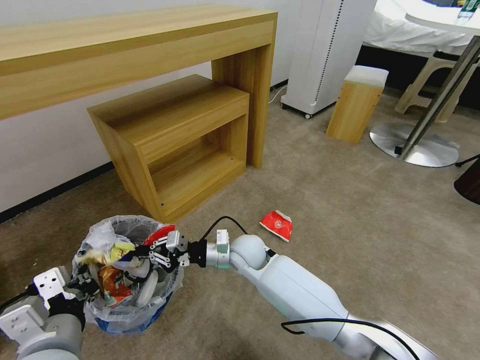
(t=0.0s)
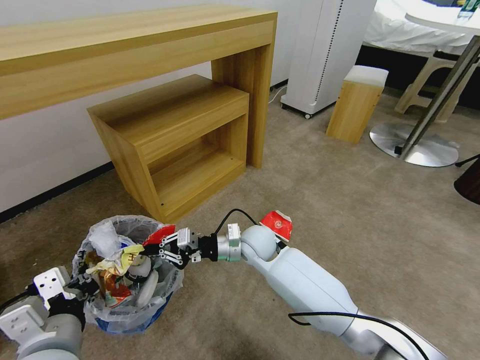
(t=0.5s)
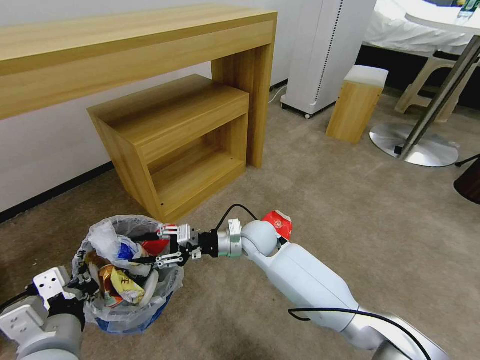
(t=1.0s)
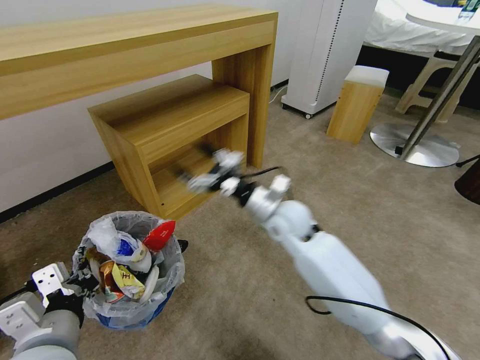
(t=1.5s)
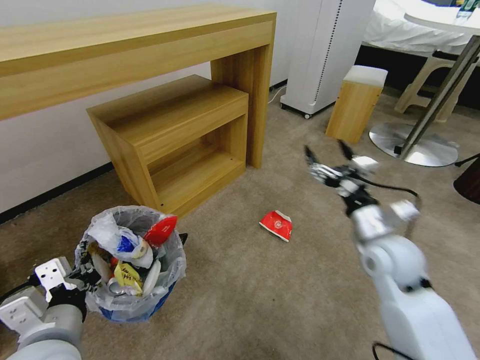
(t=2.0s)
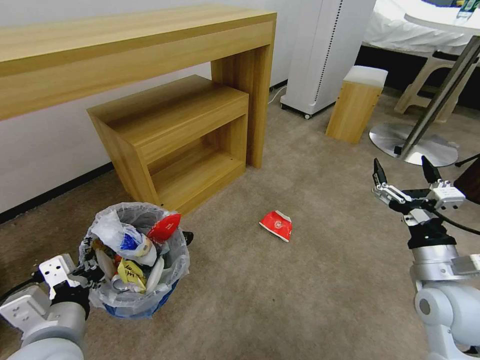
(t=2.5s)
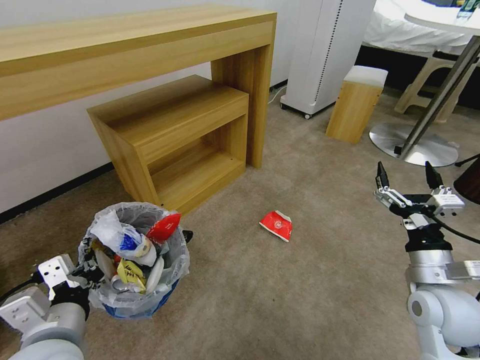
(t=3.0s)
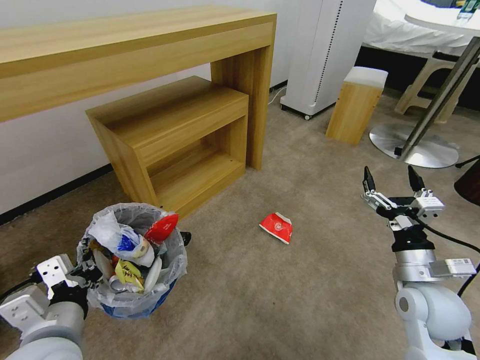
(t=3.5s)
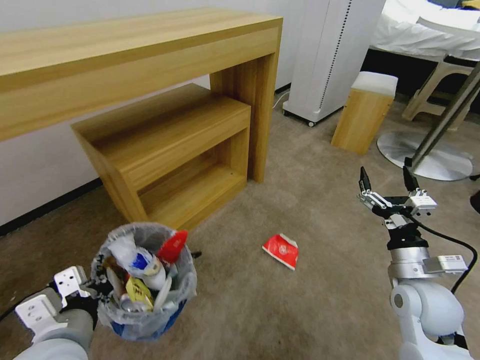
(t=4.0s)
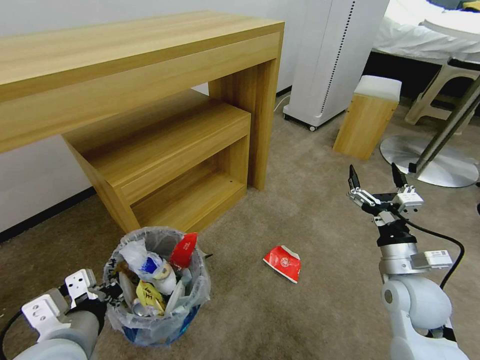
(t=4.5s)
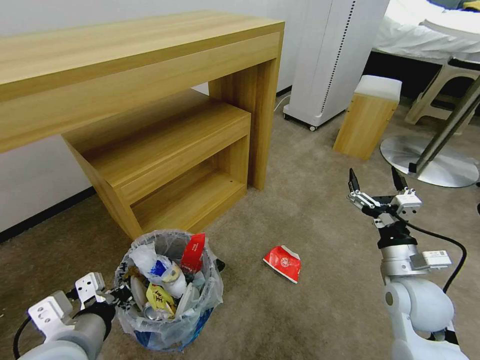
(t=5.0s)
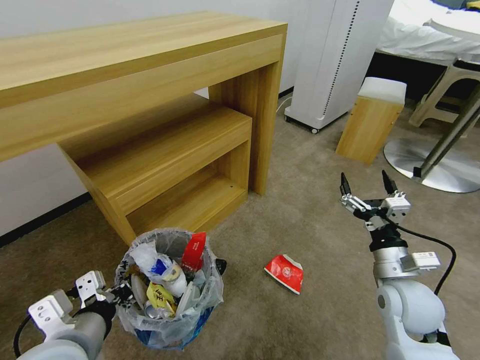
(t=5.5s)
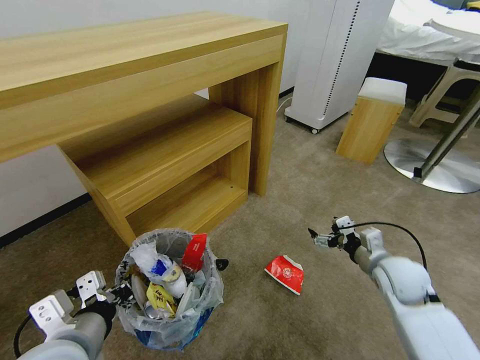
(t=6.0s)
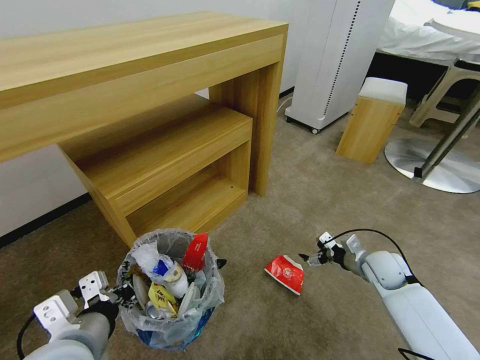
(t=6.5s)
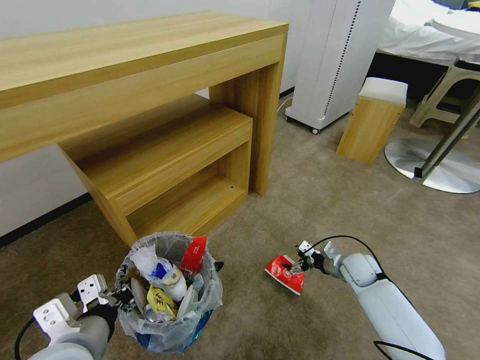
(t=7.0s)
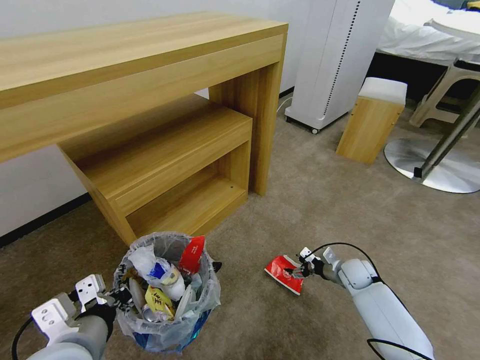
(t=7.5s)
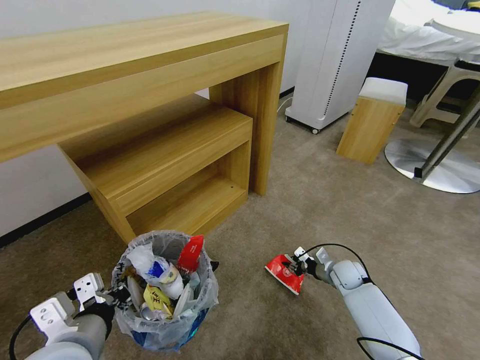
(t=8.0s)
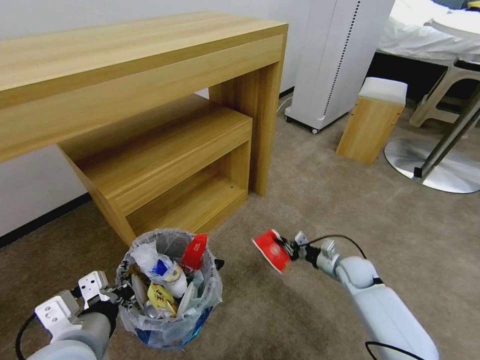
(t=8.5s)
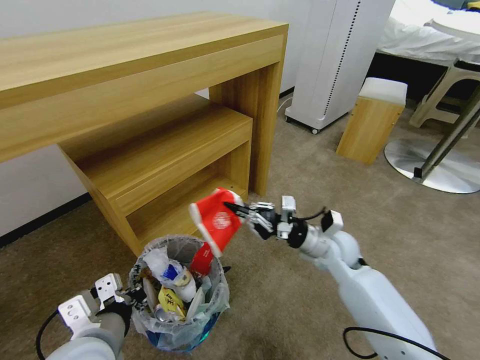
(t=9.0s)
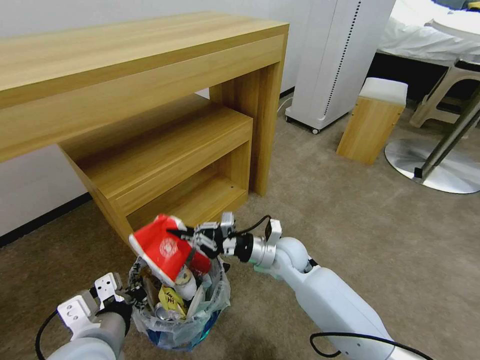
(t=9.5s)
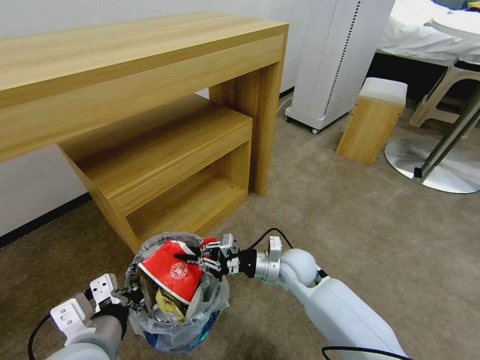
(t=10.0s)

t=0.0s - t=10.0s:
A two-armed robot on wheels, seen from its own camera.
Task of the whole recording: Pick up the trash bin and place the garbage on the floor into it.
t=0.0s - t=2.0s: The right gripper heads to the right and upward, covering approximately 30 cm, and opens its fingers.
t=2.0s - t=4.0s: The right gripper heads backward, covering some 5 cm.
t=4.0s - t=6.0s: The right gripper shifts approximately 5 cm forward.
t=6.0s - t=8.0s: The right gripper heads downward and forward, covering roughly 20 cm, and closes.
t=8.0s - t=10.0s: The right gripper goes about 25 cm to the left and upward.

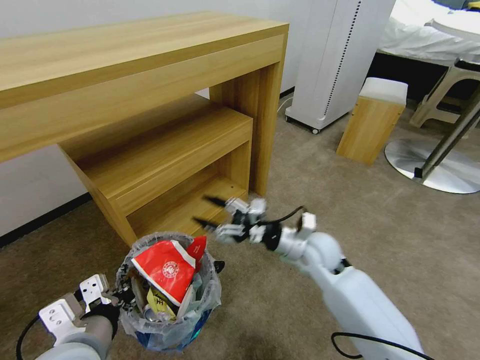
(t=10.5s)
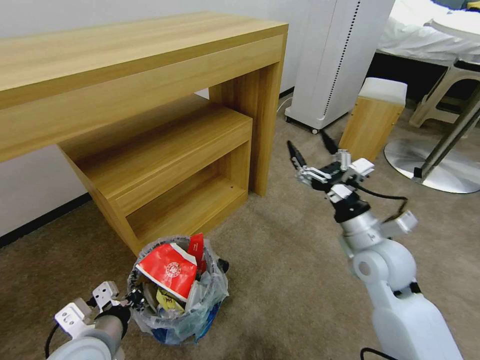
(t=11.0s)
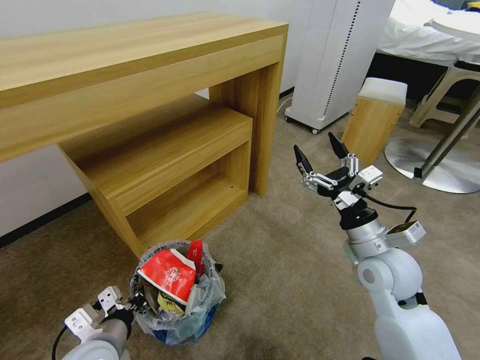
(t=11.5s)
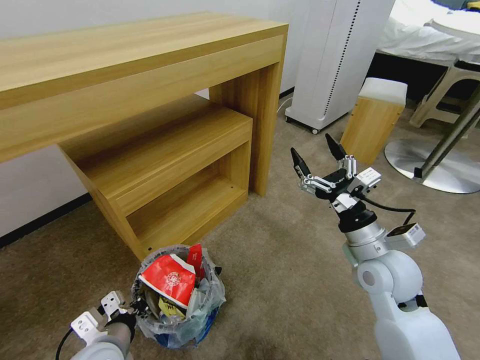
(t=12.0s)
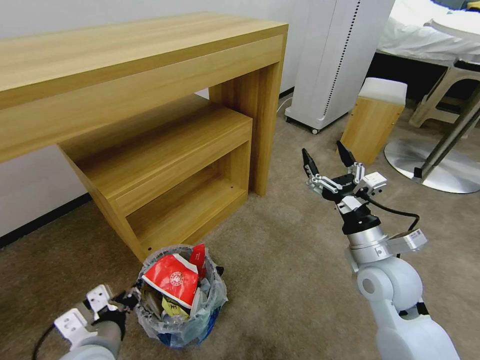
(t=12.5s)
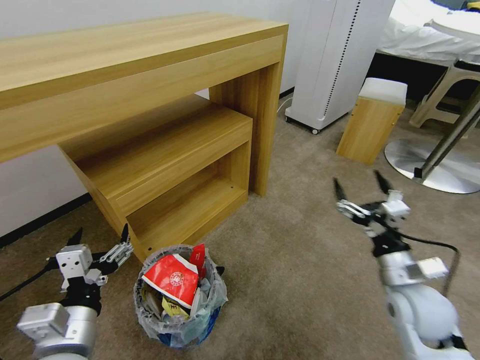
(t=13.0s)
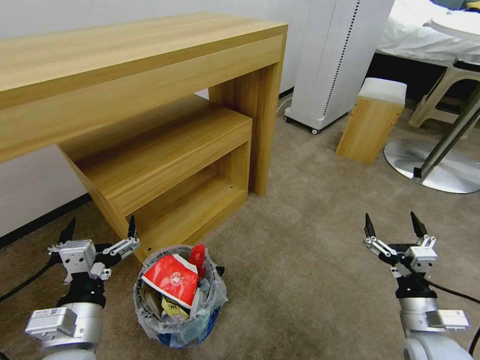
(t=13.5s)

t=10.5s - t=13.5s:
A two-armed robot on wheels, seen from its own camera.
Task of the whole recording: Pick up the trash bin and place the garbage on the floor into it.
t=10.5s - t=12.0s: The left gripper goes roughly 10 cm downward, while the right gripper goes some 15 cm to the right, backward and upward.
t=12.0s - t=13.5s: The right gripper is displaced backward, downward and to the right by some 20 cm, while the left gripper goes roughly 10 cm upward, and opens up.
